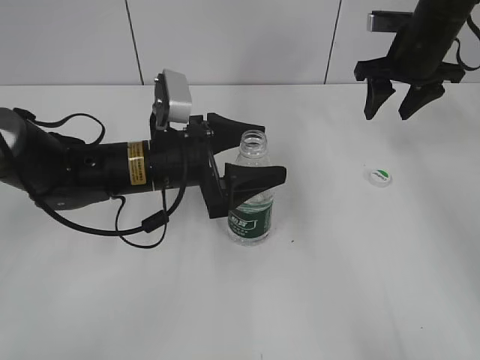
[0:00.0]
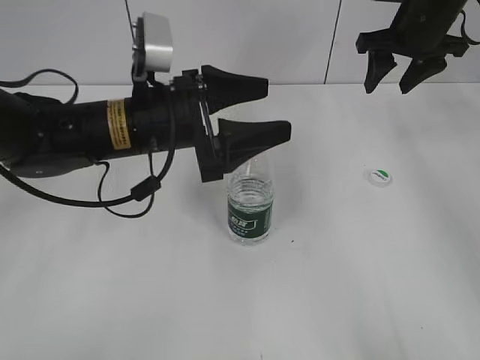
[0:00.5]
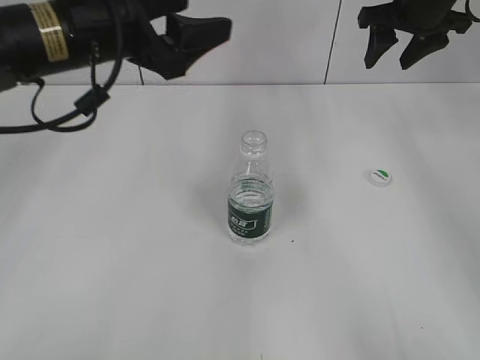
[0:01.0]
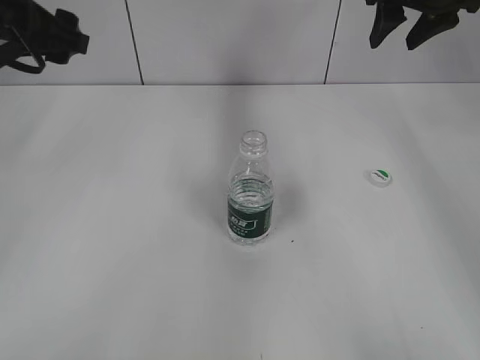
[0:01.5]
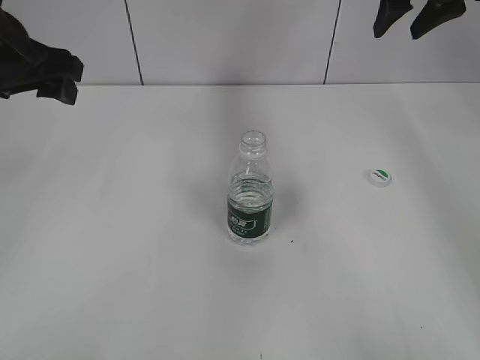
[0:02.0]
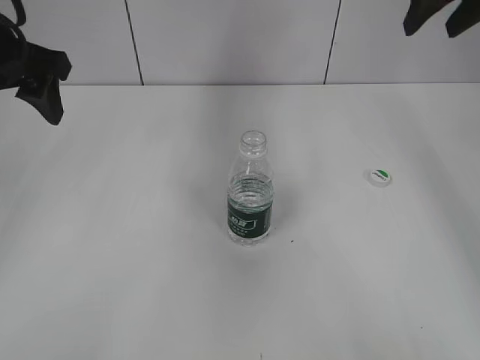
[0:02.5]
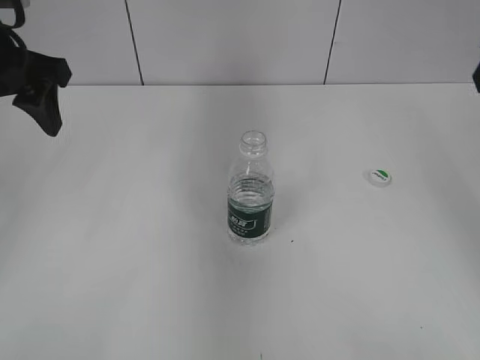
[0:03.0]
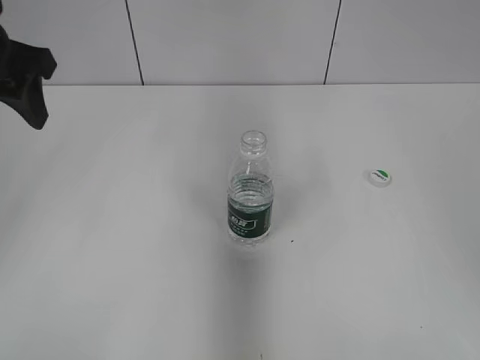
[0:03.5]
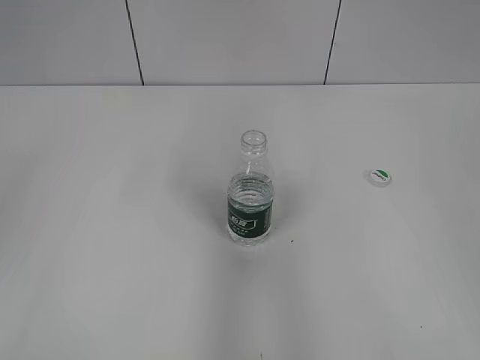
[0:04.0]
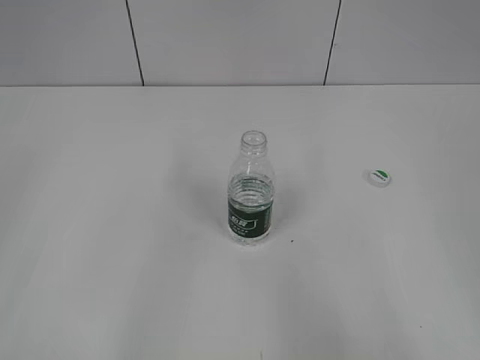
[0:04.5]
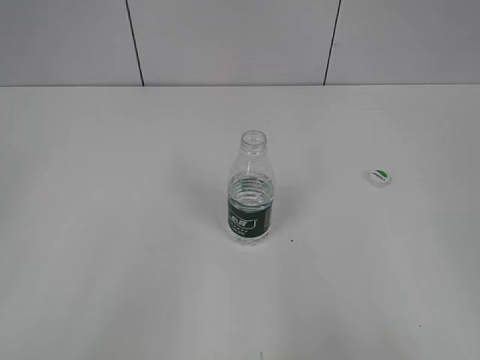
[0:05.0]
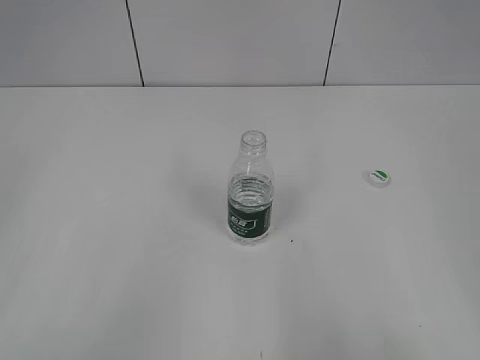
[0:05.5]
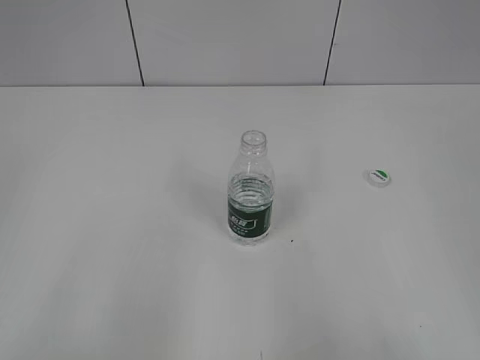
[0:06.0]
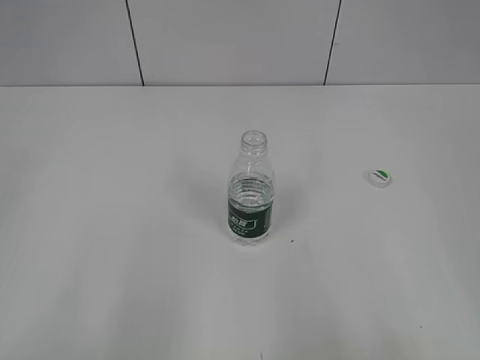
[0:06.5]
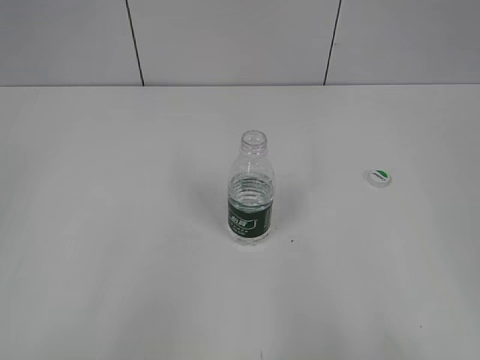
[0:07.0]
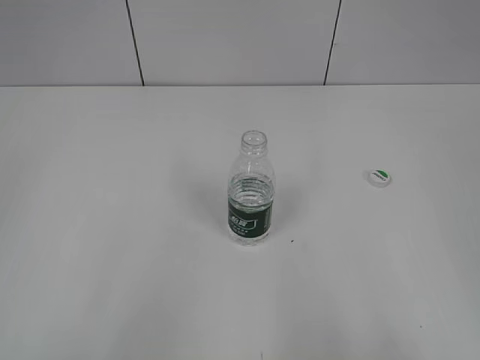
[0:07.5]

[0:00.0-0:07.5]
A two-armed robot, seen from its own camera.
0:00.0 to 0:02.0: The left gripper is displaced upward and to the left by about 20 cm, while the right gripper heads upward, covering roughly 10 cm.
0:02.0 to 0:04.0: The left gripper moves backward, approximately 15 cm; the right gripper is displaced backward by some 40 cm.
0:04.0 to 0:05.5: The right gripper shifts roughly 10 cm backward. The left gripper moves backward, approximately 20 cm.

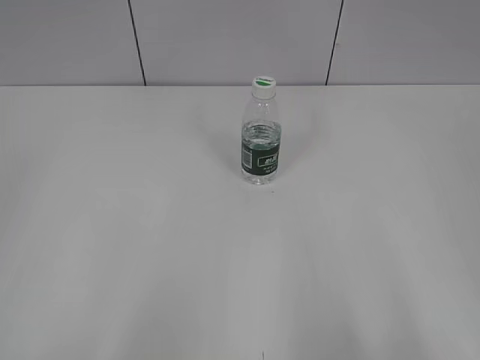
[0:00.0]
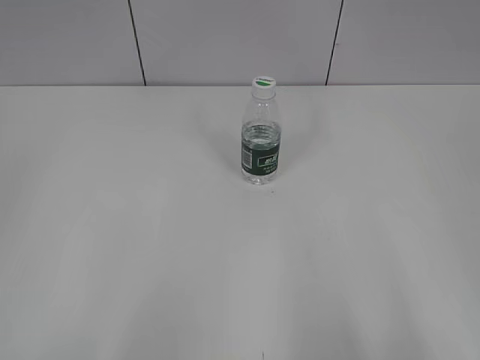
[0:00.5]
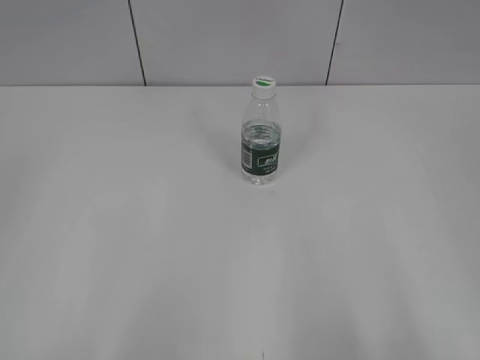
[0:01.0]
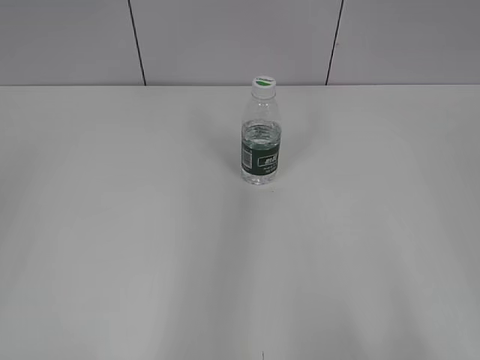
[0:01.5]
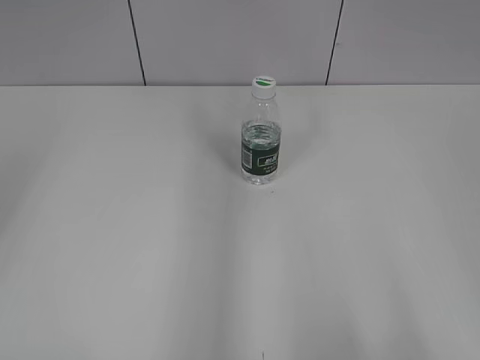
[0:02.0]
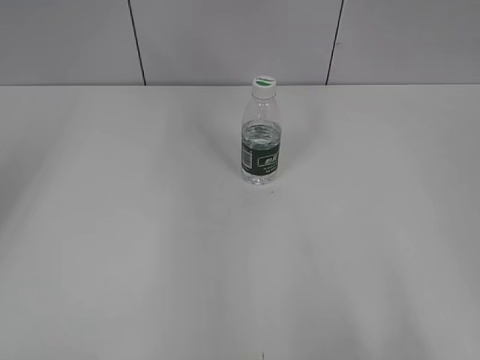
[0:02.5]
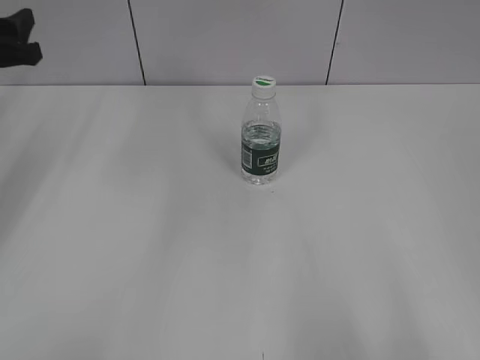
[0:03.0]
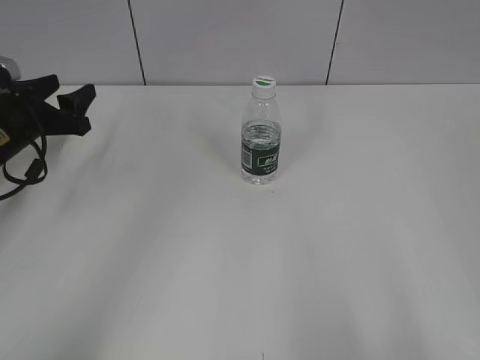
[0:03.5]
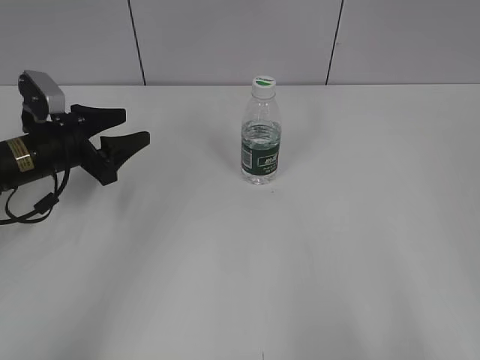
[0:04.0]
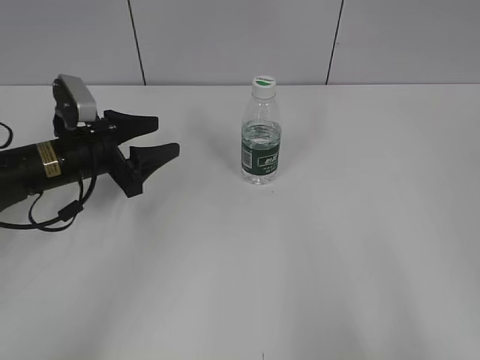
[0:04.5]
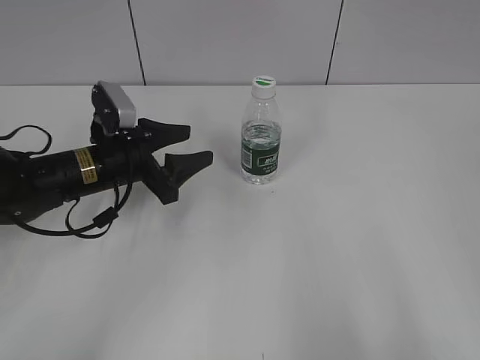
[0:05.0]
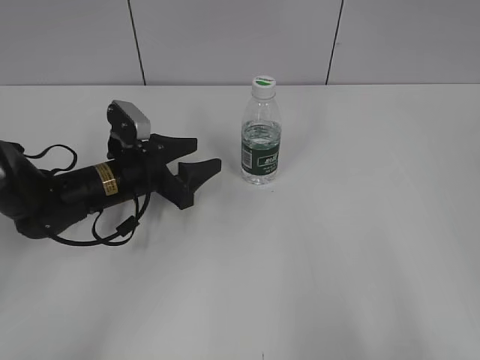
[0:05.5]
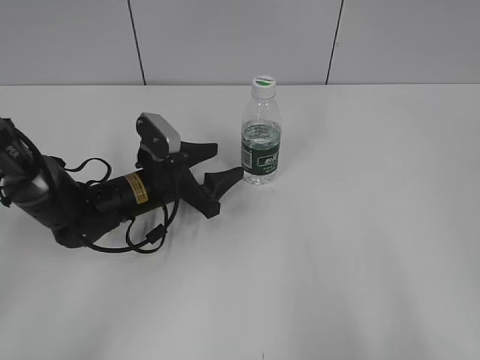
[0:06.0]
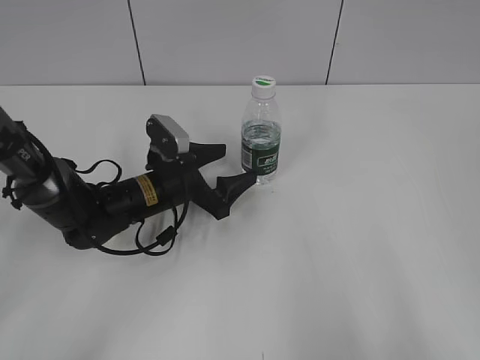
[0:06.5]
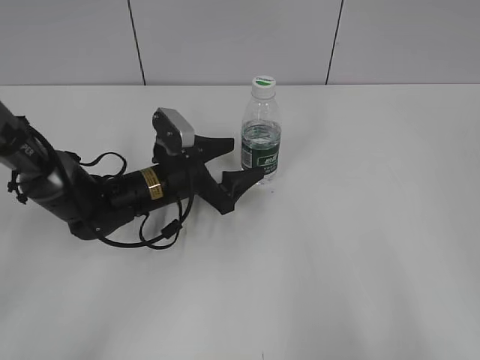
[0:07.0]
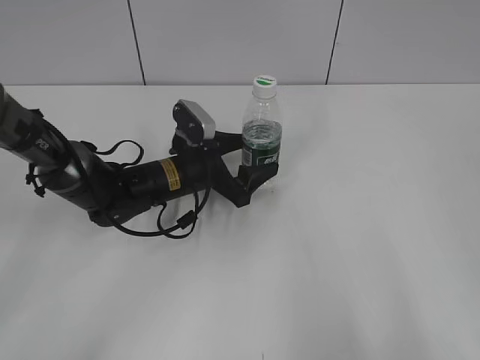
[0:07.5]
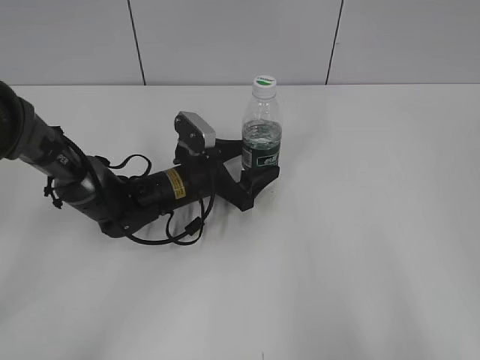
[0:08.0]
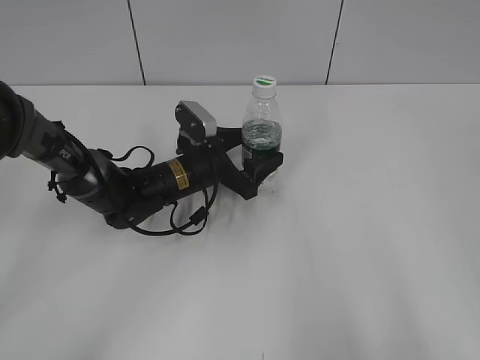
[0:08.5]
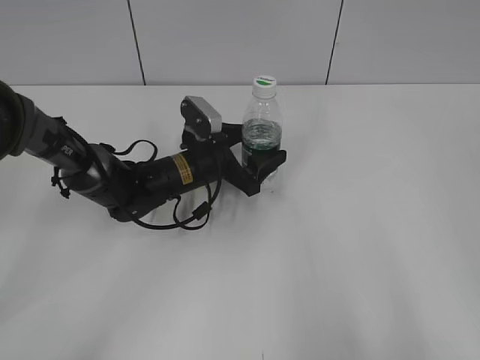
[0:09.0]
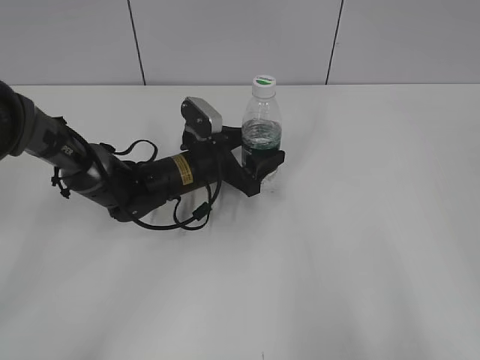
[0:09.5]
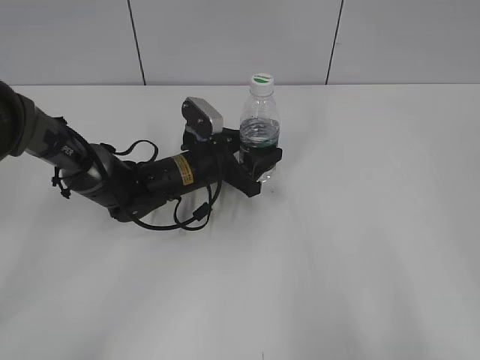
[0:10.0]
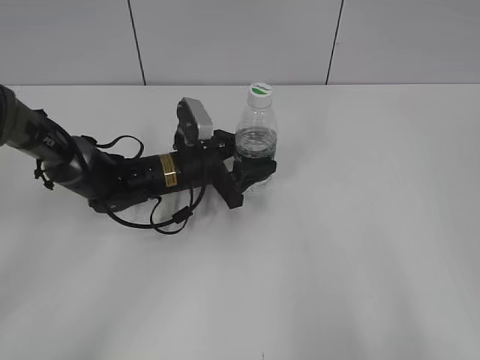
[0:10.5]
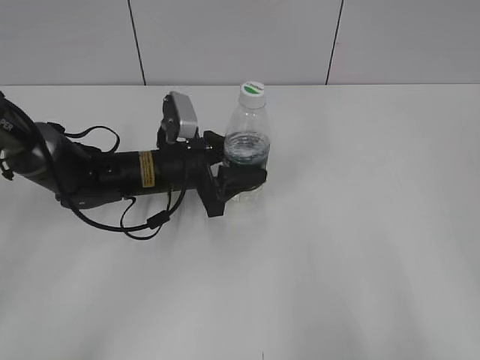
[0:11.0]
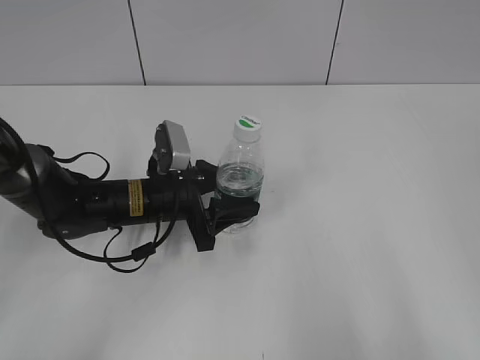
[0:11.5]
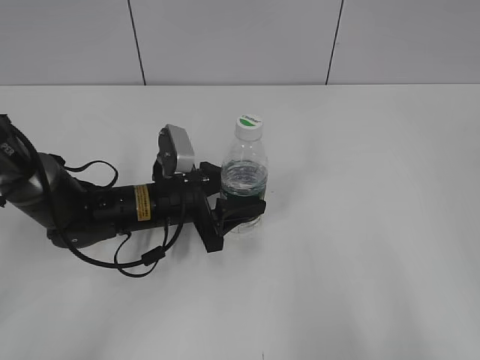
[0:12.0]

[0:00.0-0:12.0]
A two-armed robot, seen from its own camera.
Step, 0:00.0 to 0:10.0: Grasp the bottle and move it to the center of the table with the left gripper.
0:02.0 to 0:04.0: The left gripper is displaced downward and forward by about 35 cm.
0:04.0 to 0:06.0: The left gripper goes about 15 cm to the right and downward.
0:06.0 to 0:08.0: The left gripper changes place by approximately 5 cm, and opens.
0:08.0 to 0:10.0: The left gripper closes.
0:10.0 to 0:12.0: The left gripper shifts roughly 5 cm backward.

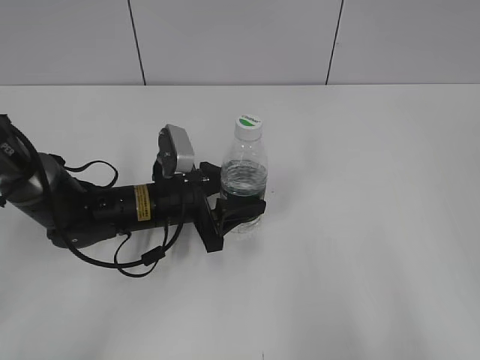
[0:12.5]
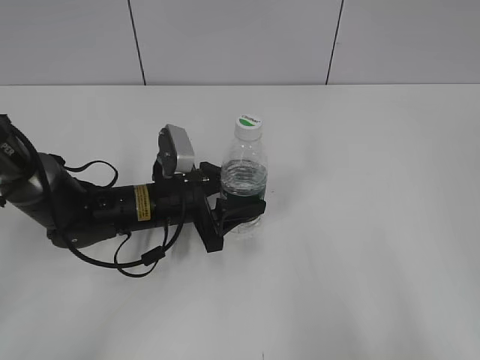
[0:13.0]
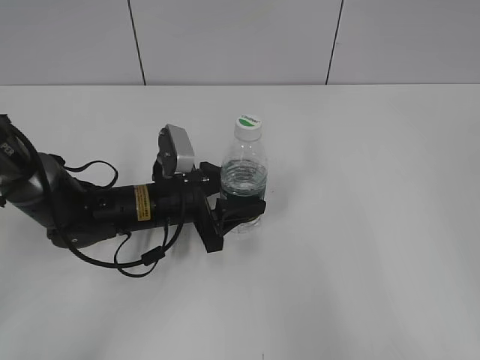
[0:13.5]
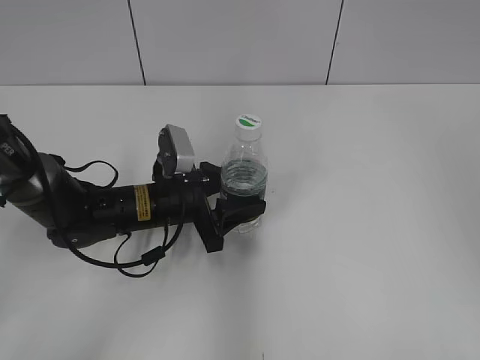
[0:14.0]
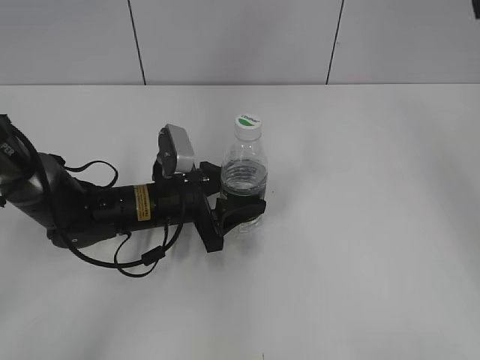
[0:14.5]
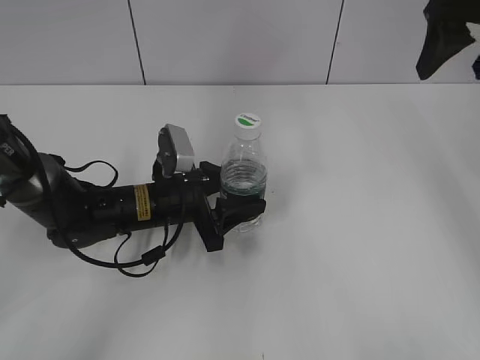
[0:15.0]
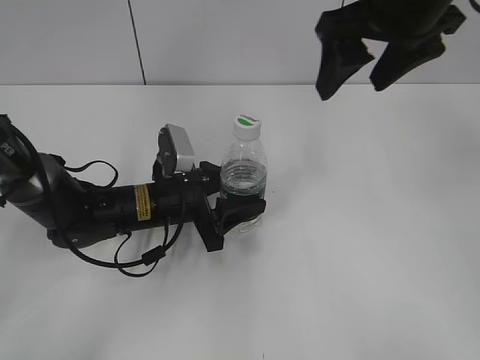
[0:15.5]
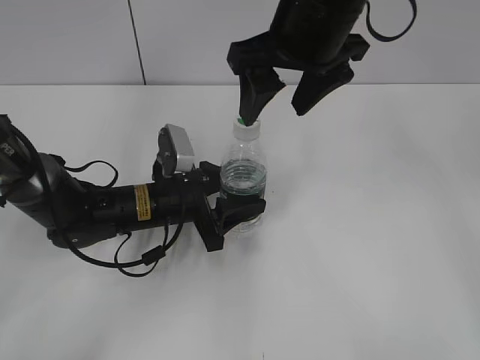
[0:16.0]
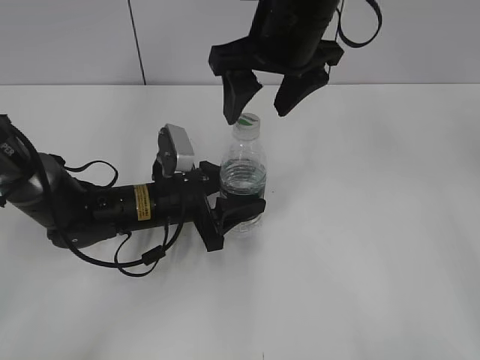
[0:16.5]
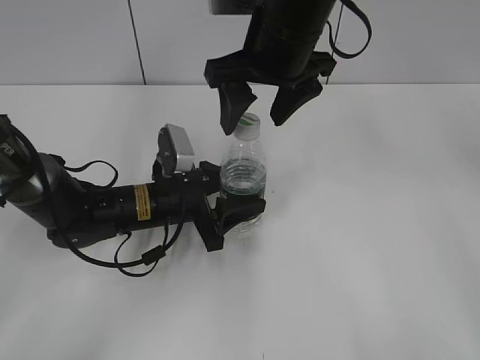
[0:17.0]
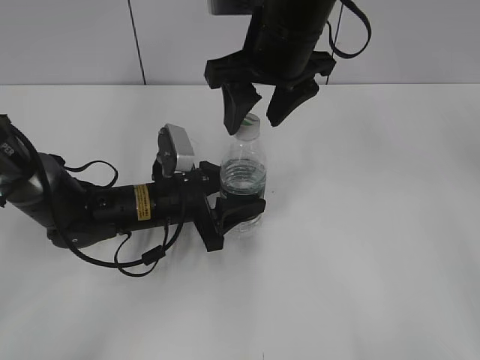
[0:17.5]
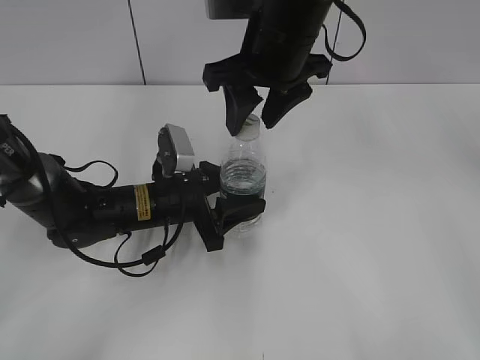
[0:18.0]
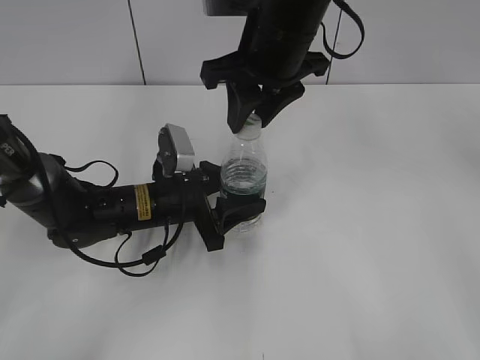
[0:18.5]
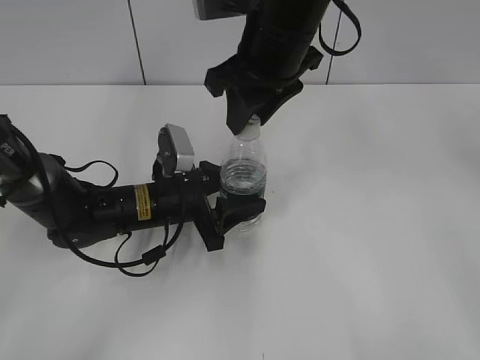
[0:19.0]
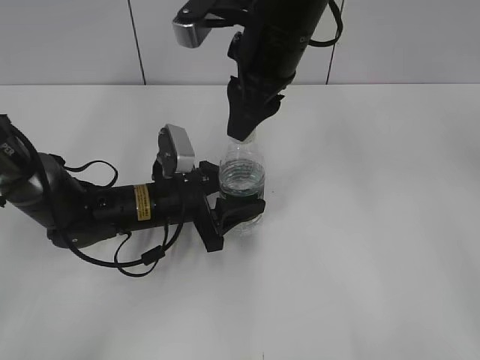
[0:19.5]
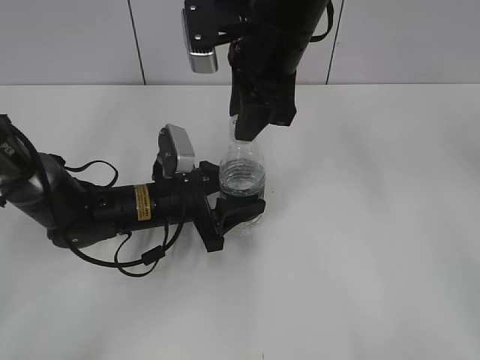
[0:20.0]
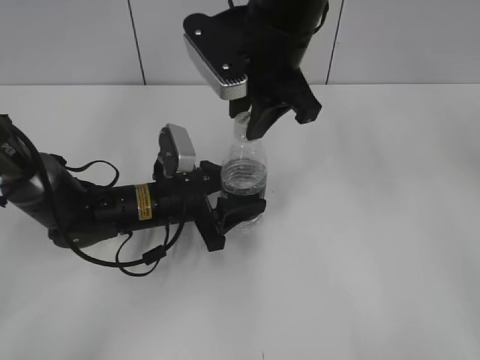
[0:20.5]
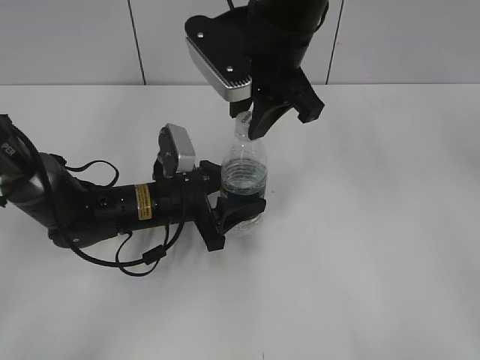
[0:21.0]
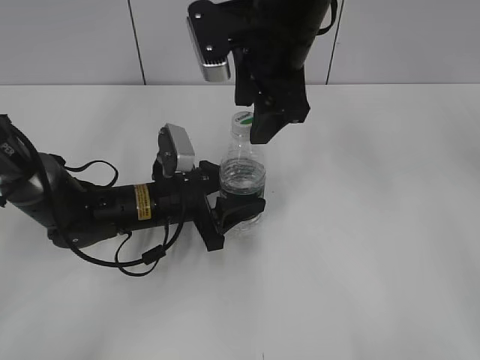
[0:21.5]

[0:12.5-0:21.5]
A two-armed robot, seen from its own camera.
0:12.5 to 0:14.5: The right gripper heads forward, covering roughly 30 cm.
0:14.5 to 0:17.0: The right gripper goes approximately 25 cm to the left and downward.
0:17.0 to 0:19.5: The right gripper closes its fingers.
0:19.5 to 0:21.5: The right gripper opens up.
